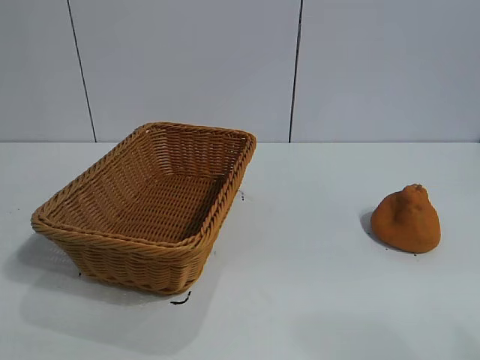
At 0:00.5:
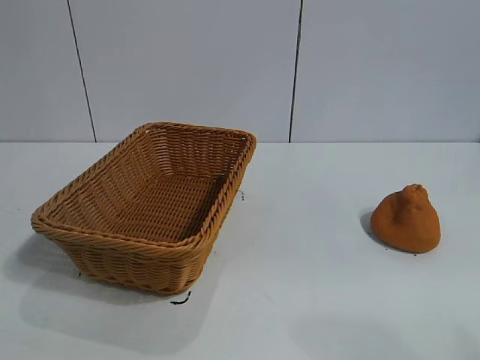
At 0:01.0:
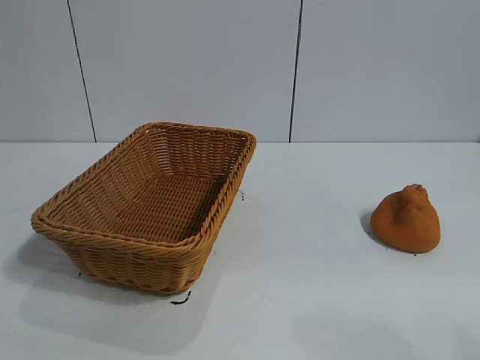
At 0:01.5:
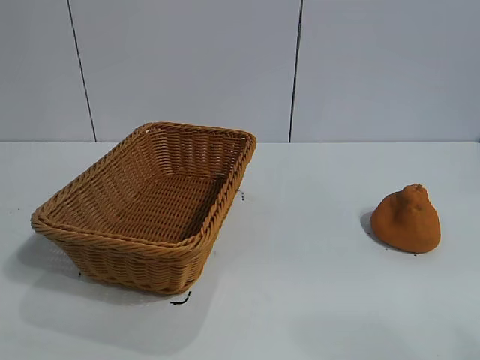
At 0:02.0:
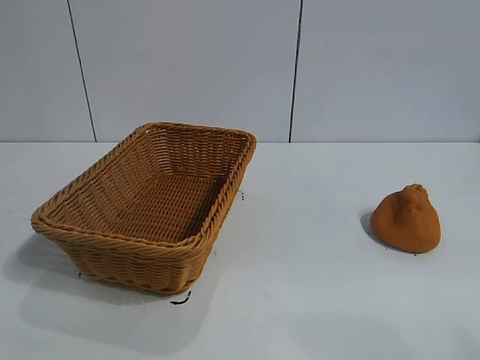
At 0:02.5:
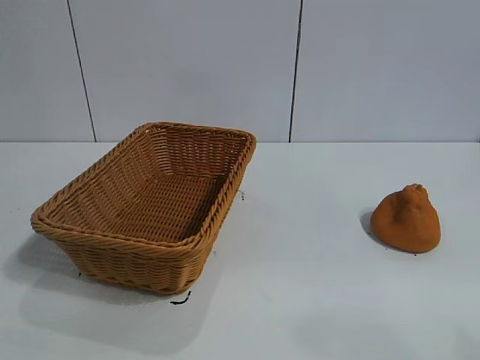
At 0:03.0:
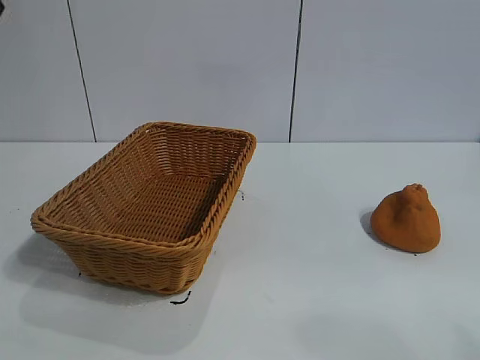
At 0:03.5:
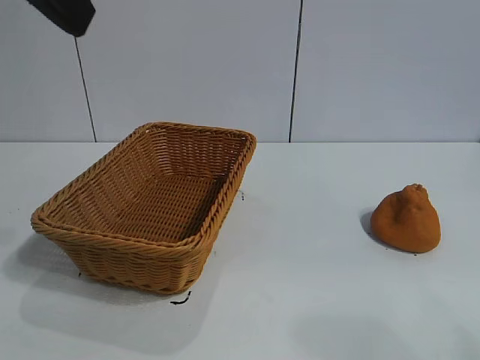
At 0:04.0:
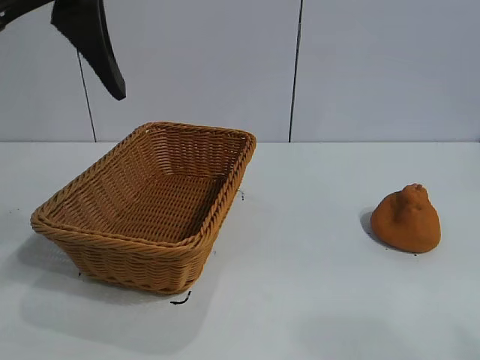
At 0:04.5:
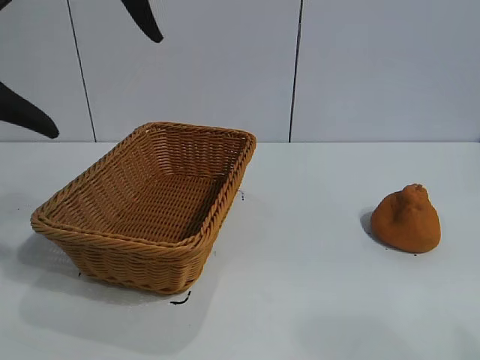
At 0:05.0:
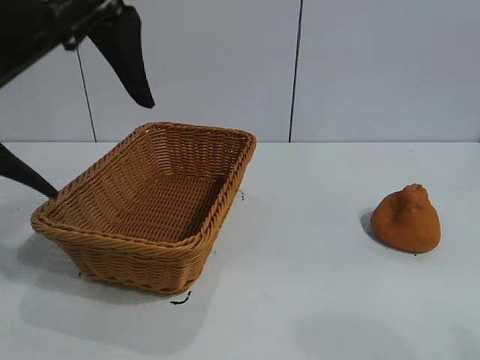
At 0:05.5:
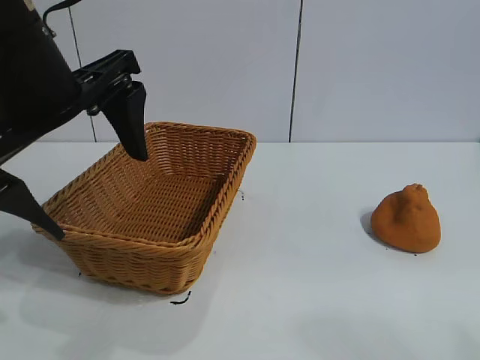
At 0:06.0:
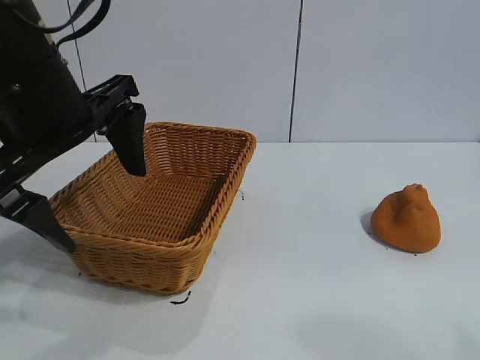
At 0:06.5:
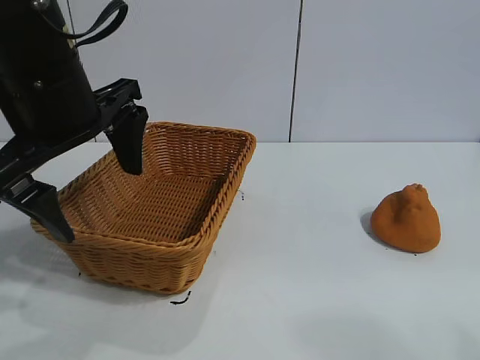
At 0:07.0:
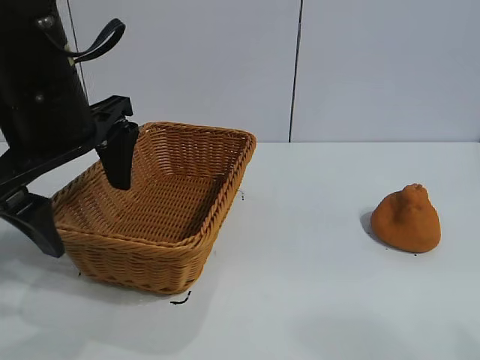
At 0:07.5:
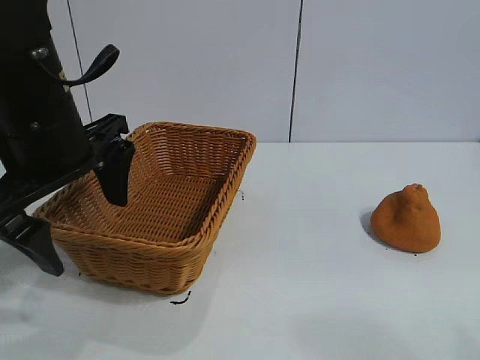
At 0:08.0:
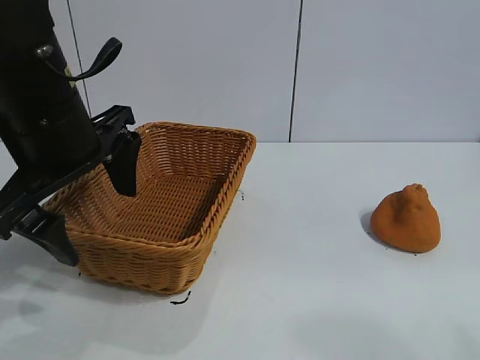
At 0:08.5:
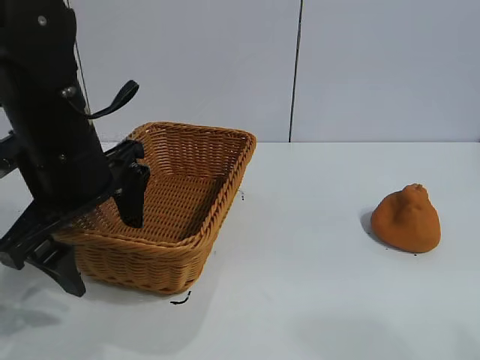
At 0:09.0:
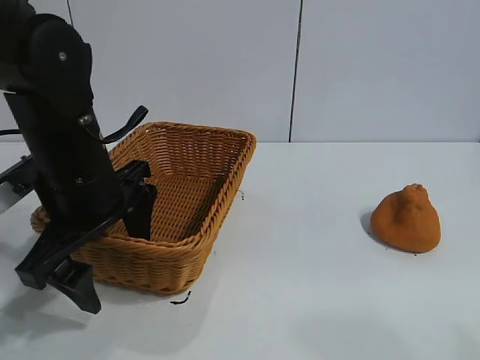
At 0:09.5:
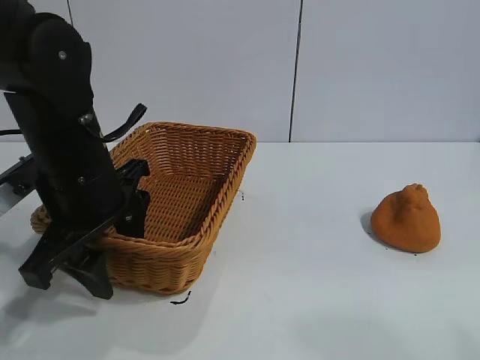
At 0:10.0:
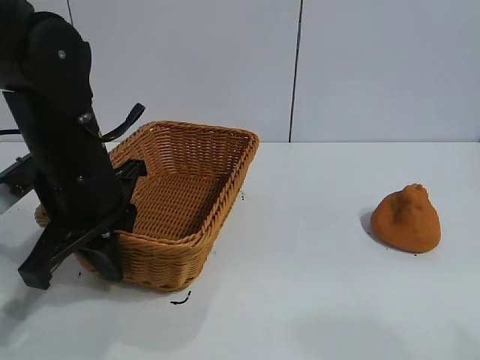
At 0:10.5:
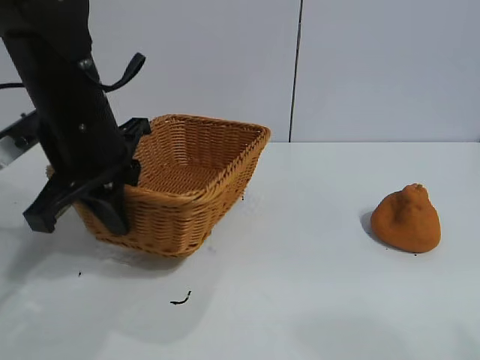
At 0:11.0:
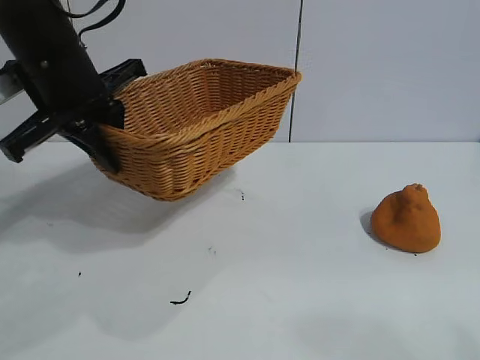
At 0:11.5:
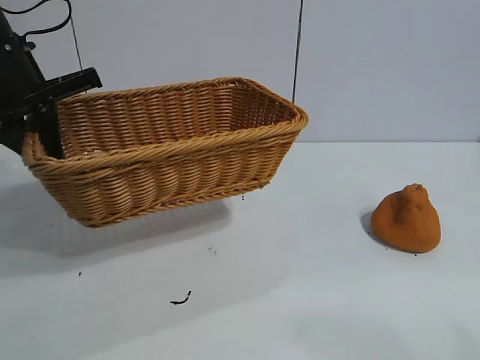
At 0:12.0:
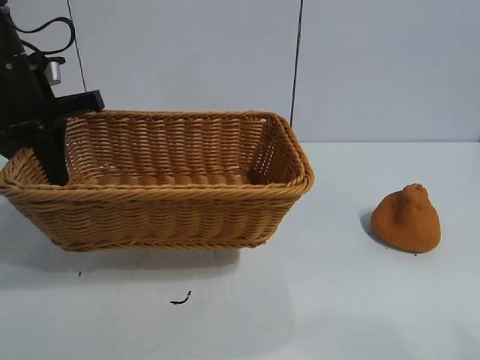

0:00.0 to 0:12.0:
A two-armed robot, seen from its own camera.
Task of the whole recording: pick up the orange and put it into the basket.
Step, 0:02.0 to 0:09.5: Grasp the basket with left gripper.

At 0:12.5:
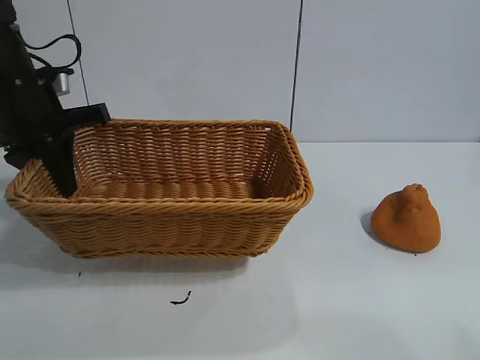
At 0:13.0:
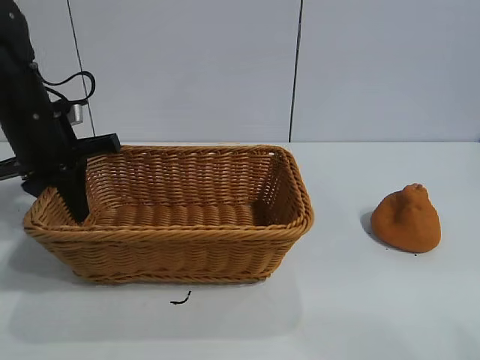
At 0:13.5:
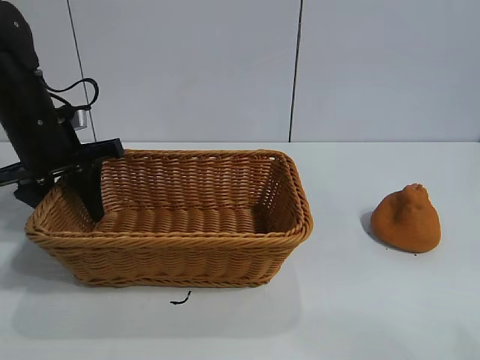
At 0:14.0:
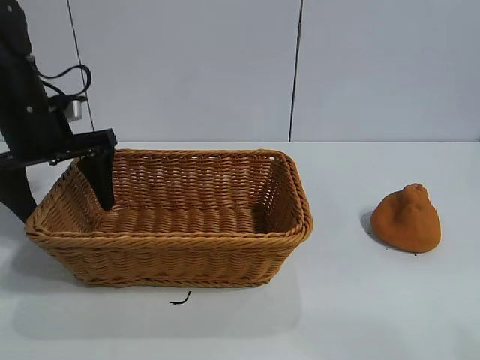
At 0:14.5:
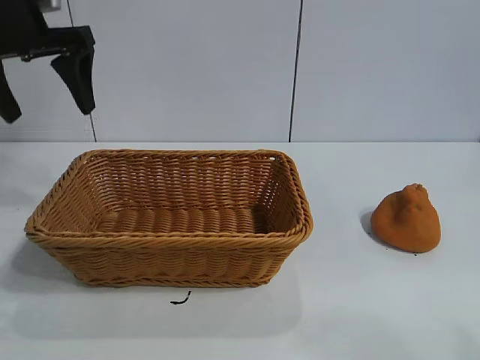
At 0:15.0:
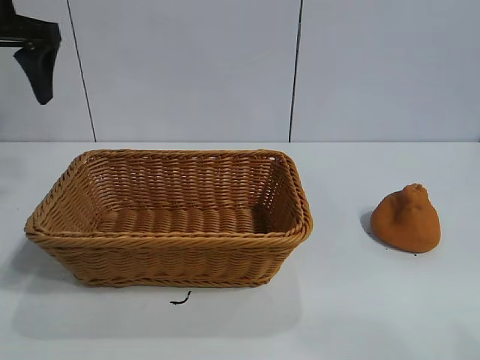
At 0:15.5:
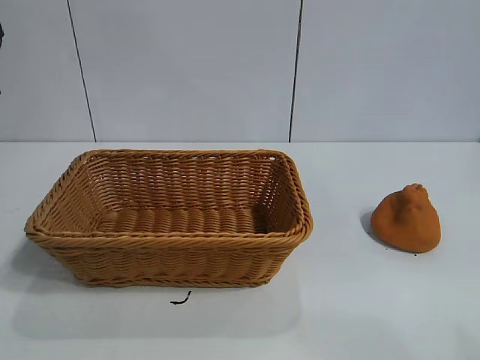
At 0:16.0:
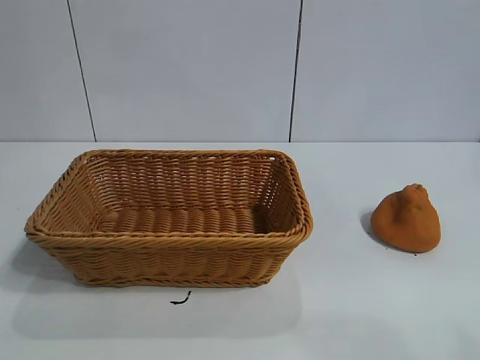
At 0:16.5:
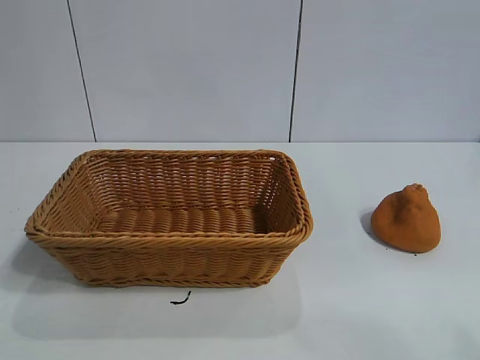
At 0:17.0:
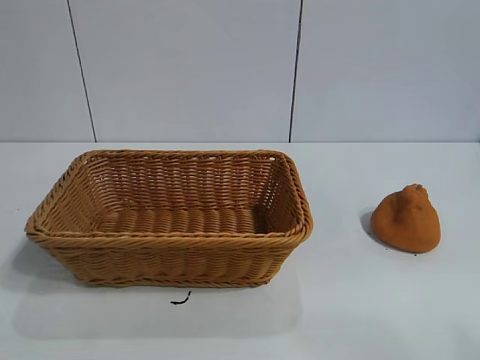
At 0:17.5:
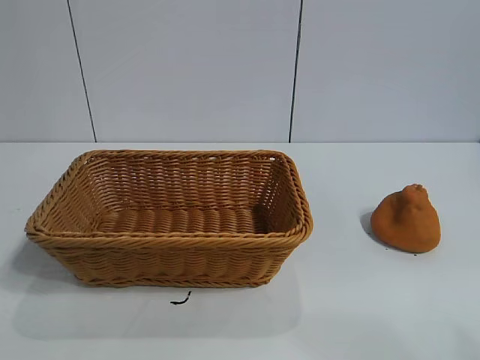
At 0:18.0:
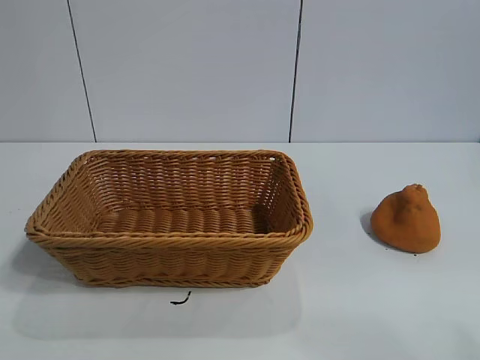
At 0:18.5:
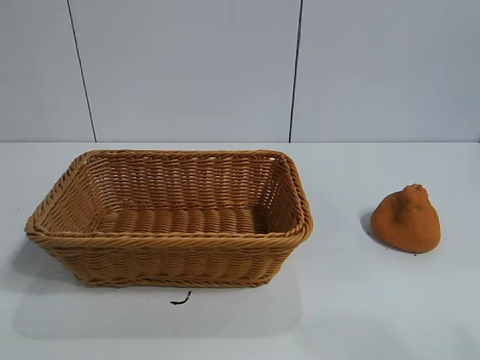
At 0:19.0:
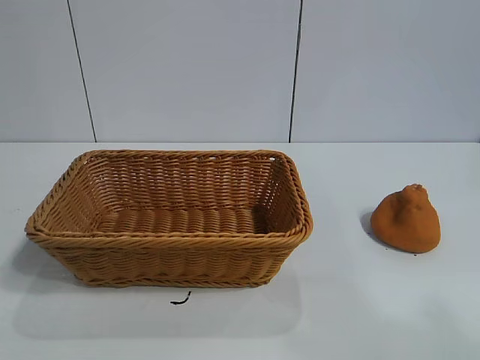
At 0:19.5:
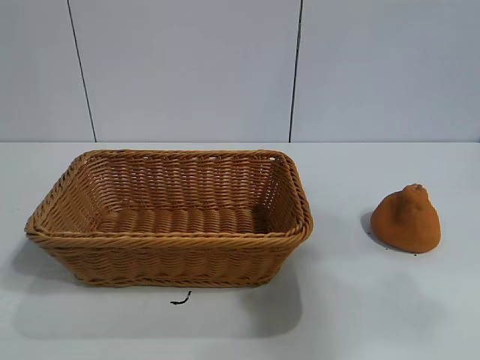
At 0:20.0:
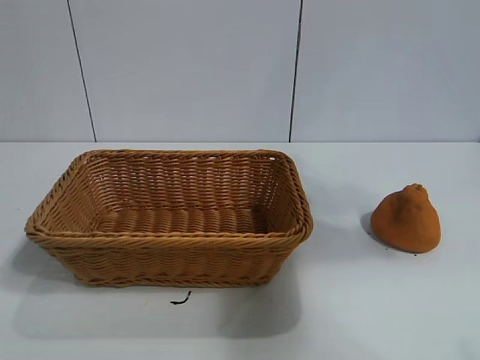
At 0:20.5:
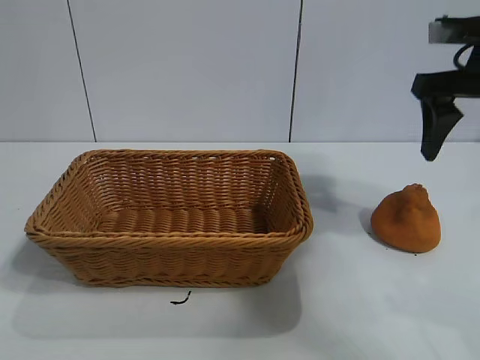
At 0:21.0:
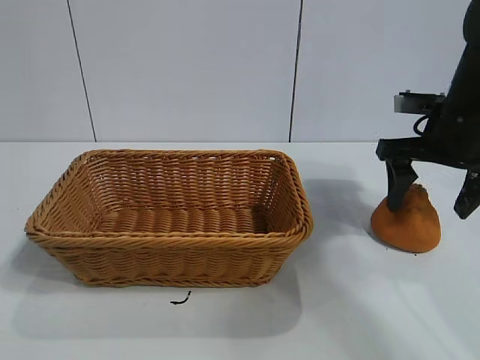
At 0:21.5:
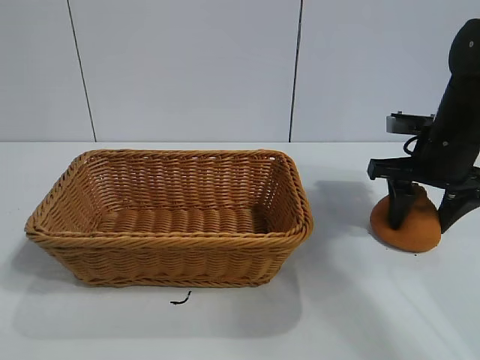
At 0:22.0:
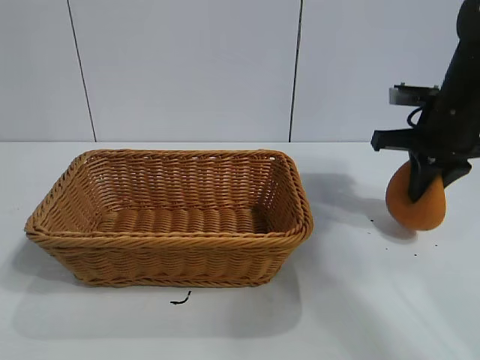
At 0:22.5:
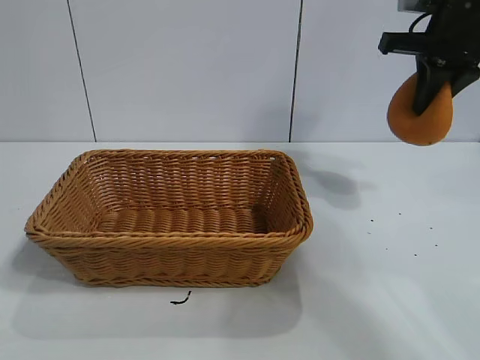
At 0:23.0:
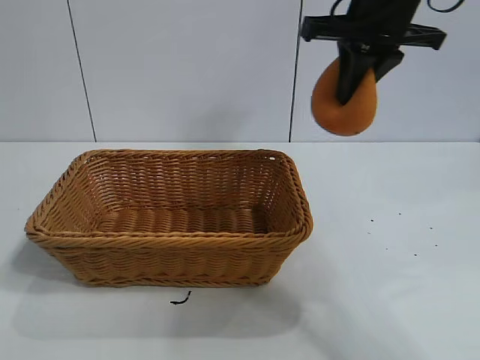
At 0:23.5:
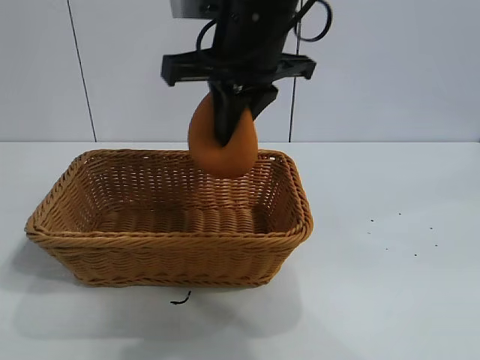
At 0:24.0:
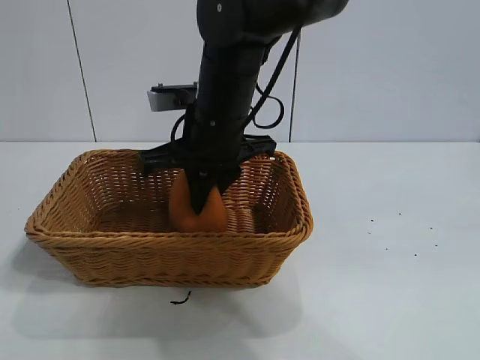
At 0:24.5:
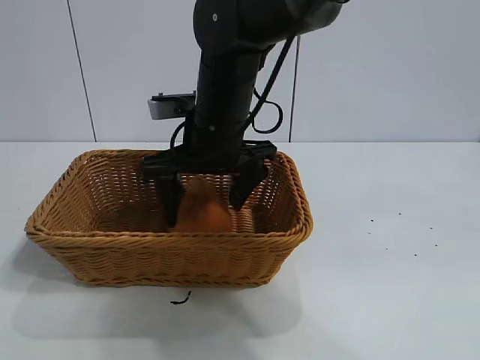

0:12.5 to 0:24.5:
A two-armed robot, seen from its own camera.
Task of the whole recording: pick up the orange and put it into the basket.
Step, 0:14.0 to 0:21.5: Grasp the orange with right gripper.

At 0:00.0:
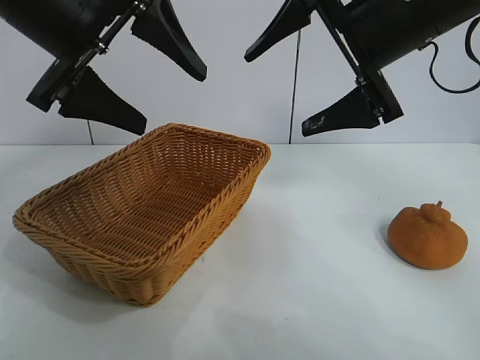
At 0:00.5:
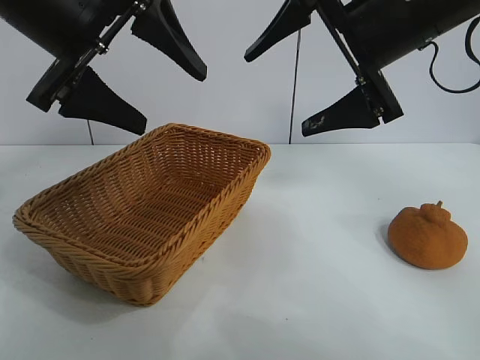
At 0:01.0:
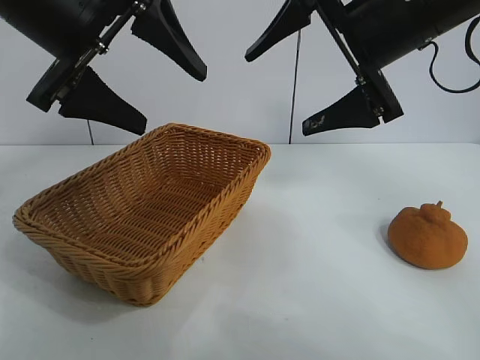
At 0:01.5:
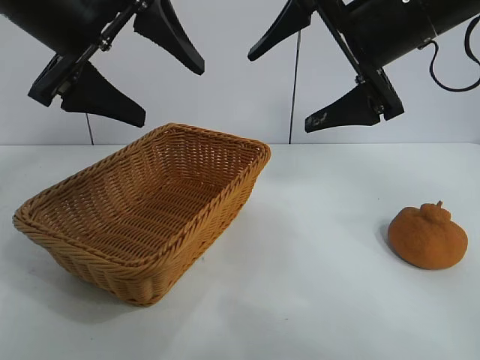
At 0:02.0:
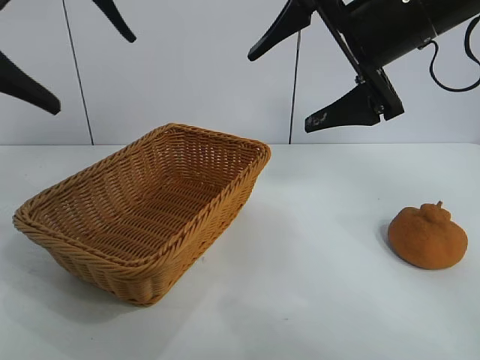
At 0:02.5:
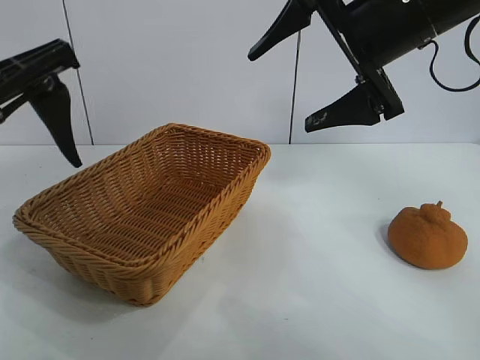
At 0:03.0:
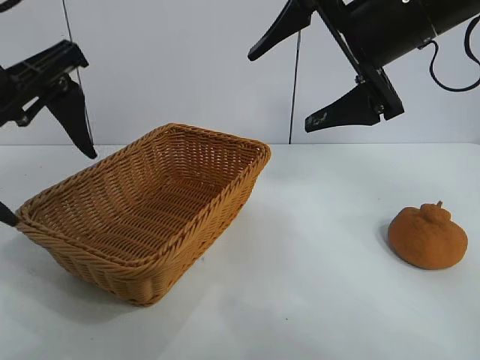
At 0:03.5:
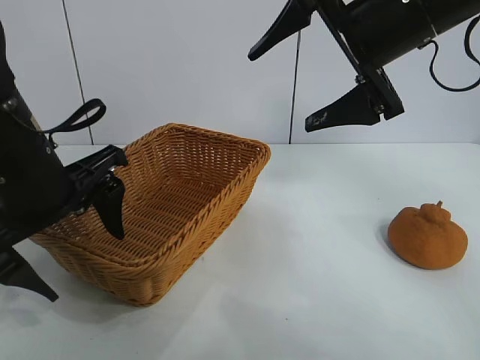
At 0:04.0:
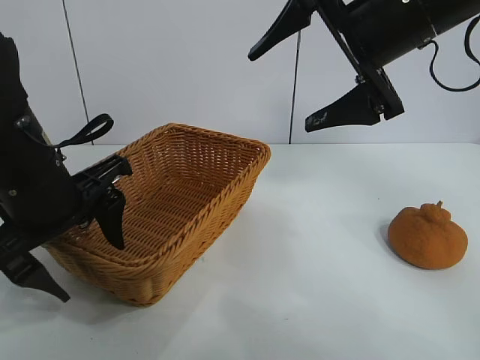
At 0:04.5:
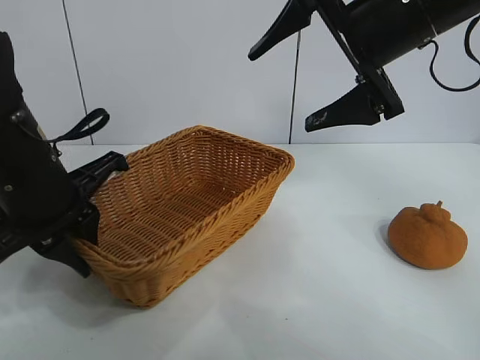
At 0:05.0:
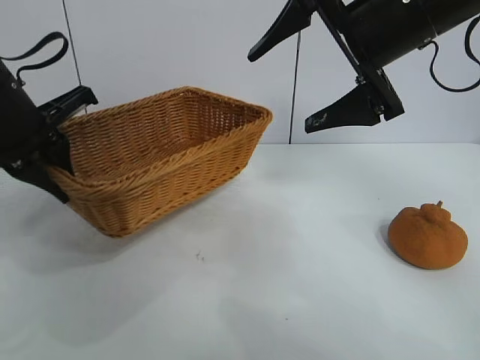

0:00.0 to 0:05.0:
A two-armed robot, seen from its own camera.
Task of the whole recording: pick up the orange and put it into the basket.
Step, 0:02.0 to 0:04.0: Grasp the basket with left gripper.
